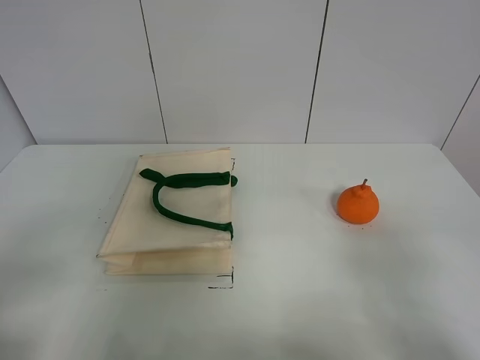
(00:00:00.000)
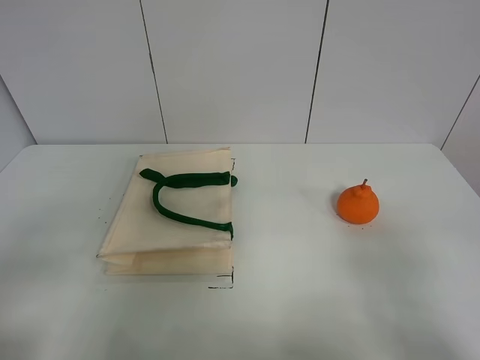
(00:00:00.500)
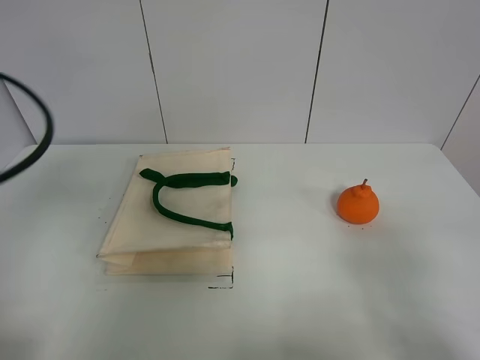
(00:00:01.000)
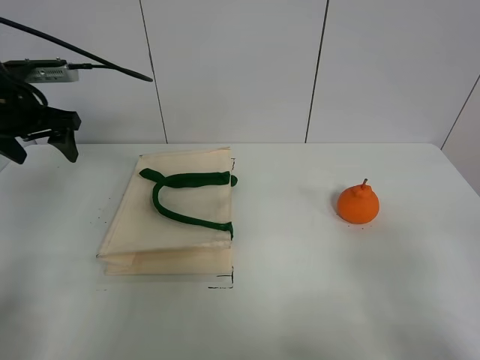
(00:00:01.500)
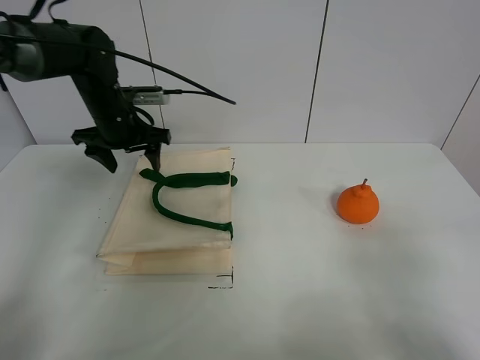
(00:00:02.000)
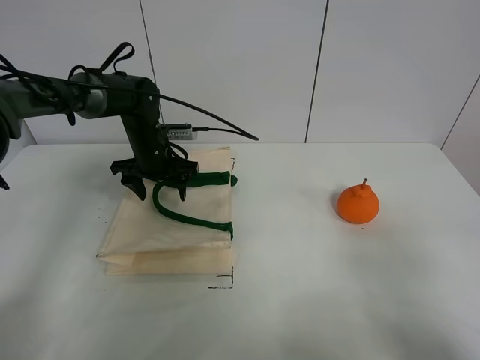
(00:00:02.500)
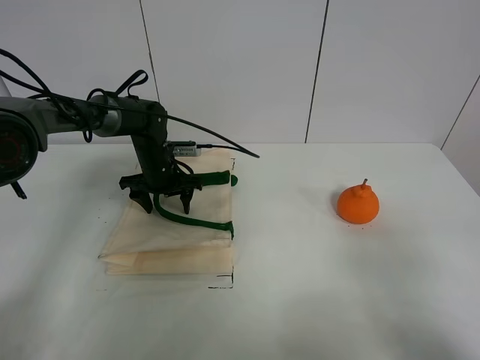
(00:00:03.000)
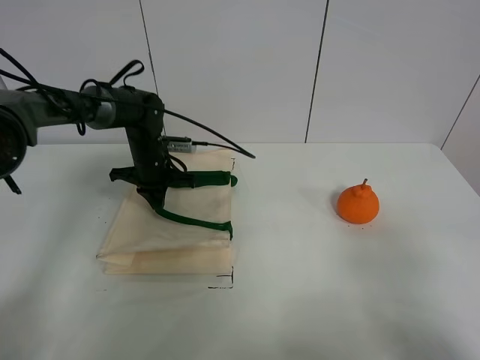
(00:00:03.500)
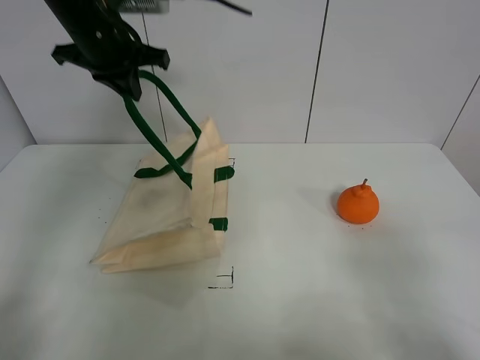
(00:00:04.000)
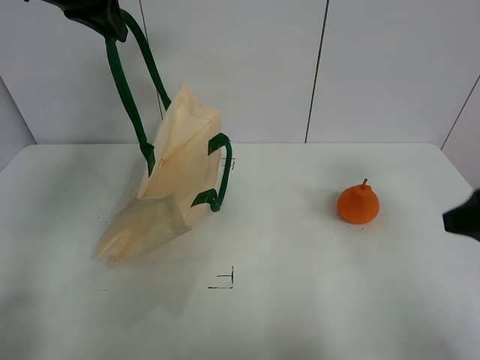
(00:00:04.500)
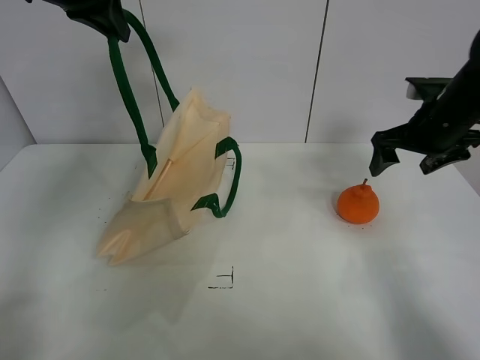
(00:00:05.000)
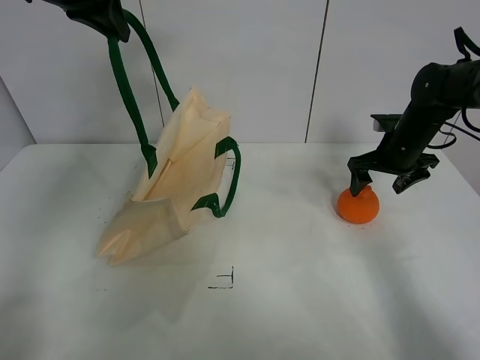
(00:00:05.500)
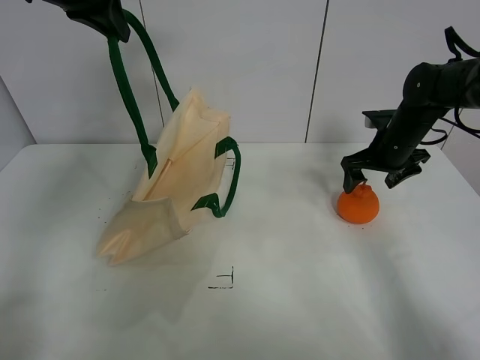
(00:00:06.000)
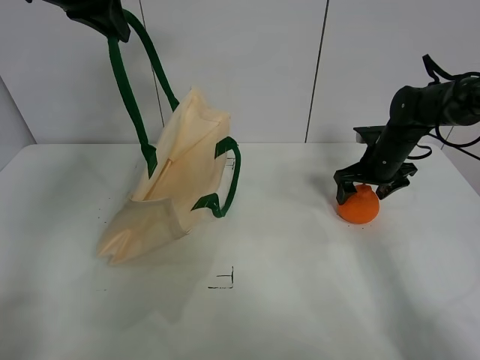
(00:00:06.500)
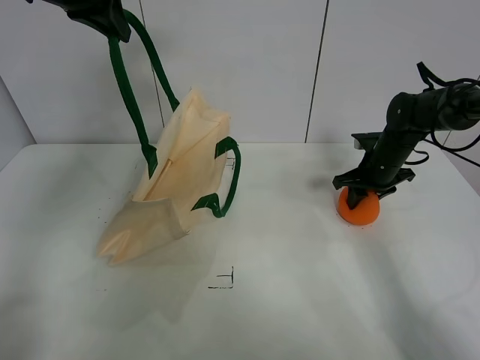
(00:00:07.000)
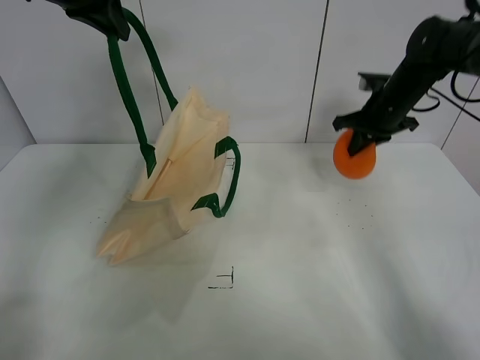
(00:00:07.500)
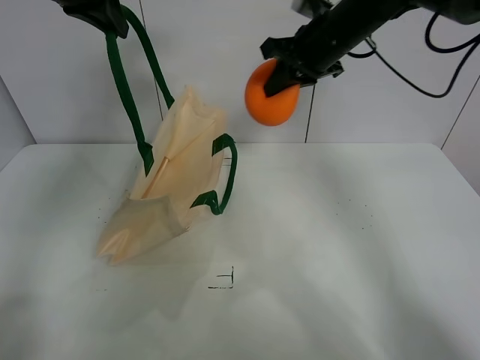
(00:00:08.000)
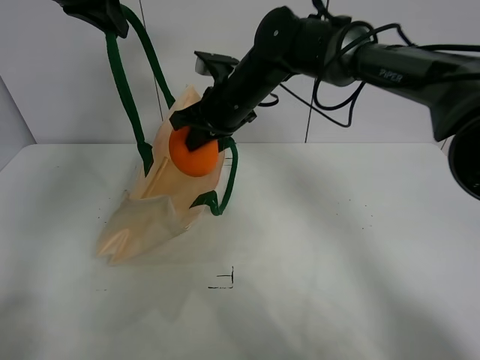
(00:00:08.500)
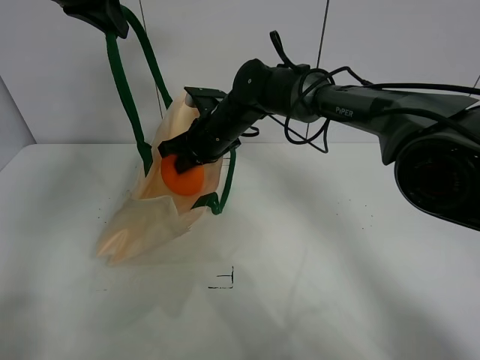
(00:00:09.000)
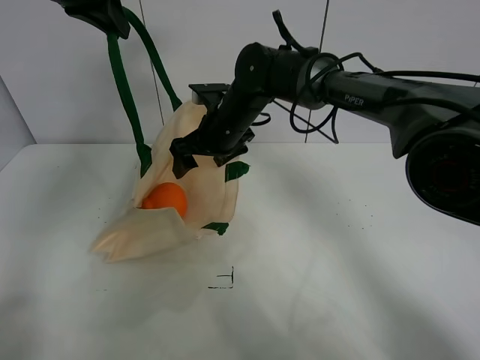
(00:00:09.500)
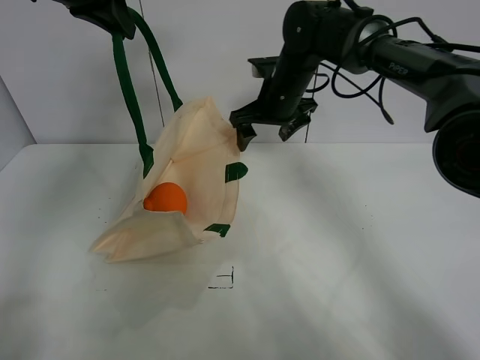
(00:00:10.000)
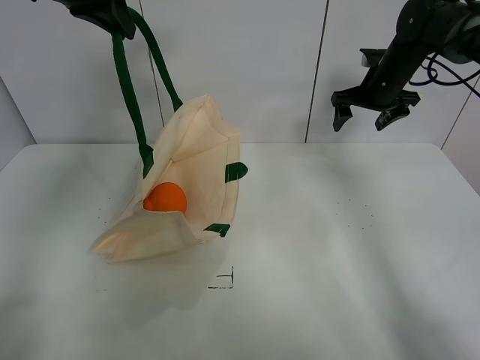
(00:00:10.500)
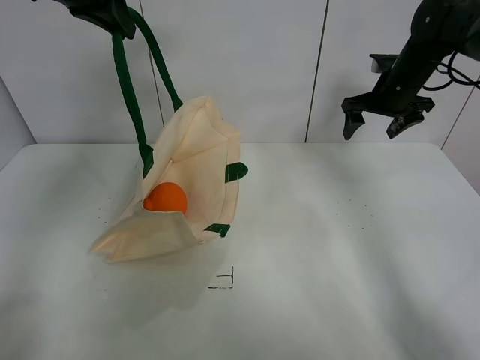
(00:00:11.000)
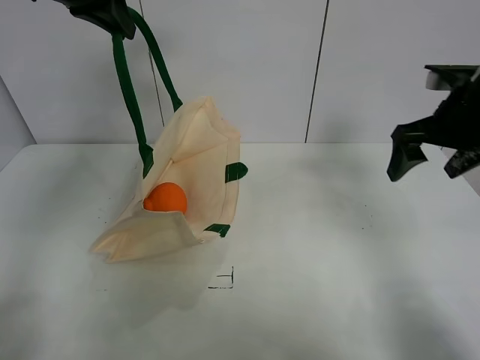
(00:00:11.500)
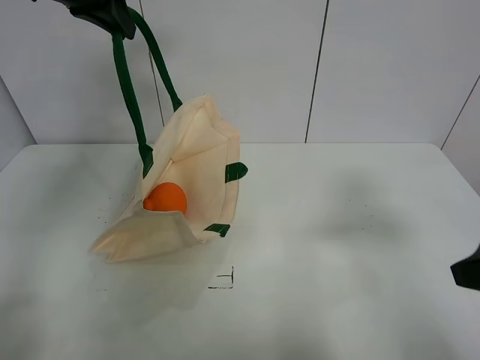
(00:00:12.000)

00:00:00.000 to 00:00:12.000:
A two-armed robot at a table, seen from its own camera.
Task of the whole recording: open the white linen bag and put the orange in the bag.
Step, 00:00:00.000 to 00:00:04.000: Lift the handbag with left gripper.
Step, 00:00:04.500 to 00:00:07.000: Grasp the orange with right gripper.
Step, 00:00:07.500 to 00:00:09.500: Place the orange in the handbag with right gripper.
00:00:00.000 to 00:00:02.000: The left gripper heads forward, covering approximately 40 cm.
00:00:02.000 to 00:00:04.000: The left gripper is displaced upward by some 15 cm, and closes its fingers.
00:00:04.000 to 00:00:06.000: The left gripper travels upward by roughly 5 cm, while the right gripper goes approximately 40 cm forward.
00:00:06.000 to 00:00:08.000: The right gripper heads upward and to the left, covering approximately 20 cm, and closes.
00:00:08.000 to 00:00:10.000: The right gripper heads downward, covering approximately 10 cm, travels to the left and back again, about 15 cm each way, and opens up.
00:00:10.000 to 00:00:12.000: The right gripper is displaced backward and to the right by about 40 cm.

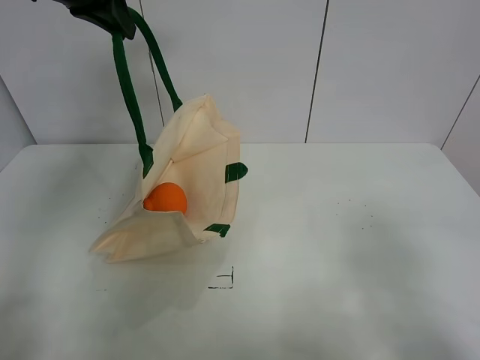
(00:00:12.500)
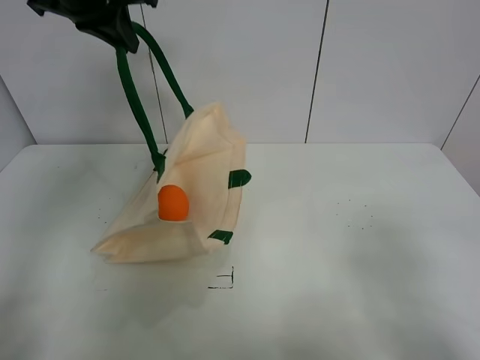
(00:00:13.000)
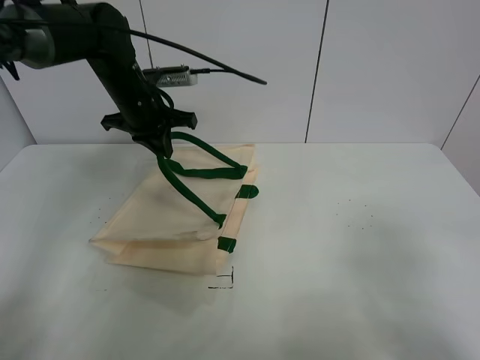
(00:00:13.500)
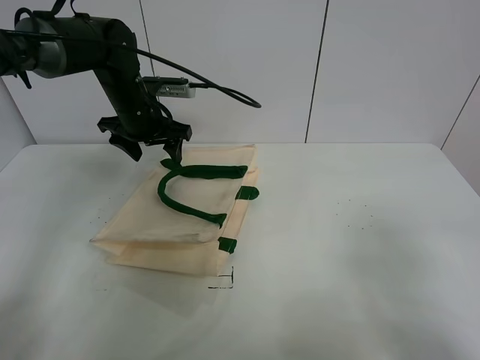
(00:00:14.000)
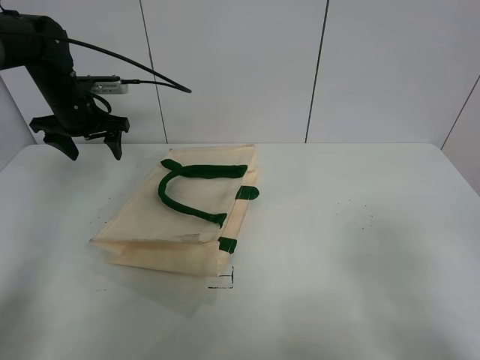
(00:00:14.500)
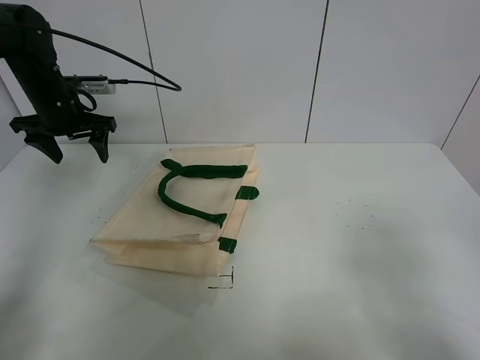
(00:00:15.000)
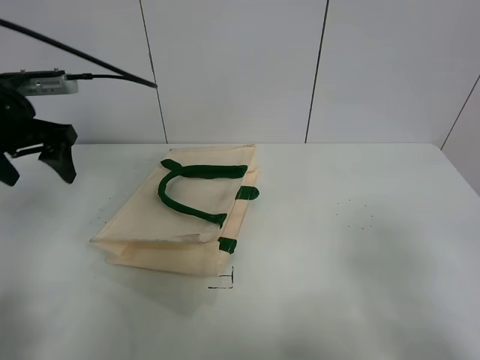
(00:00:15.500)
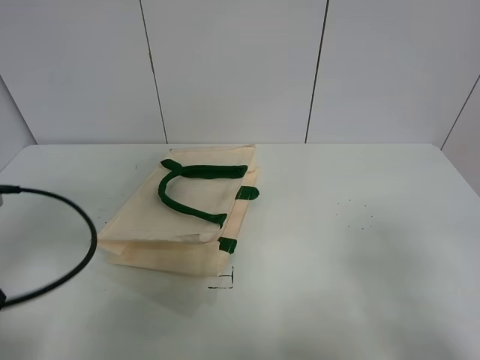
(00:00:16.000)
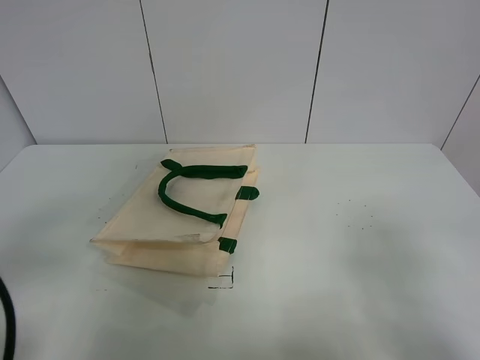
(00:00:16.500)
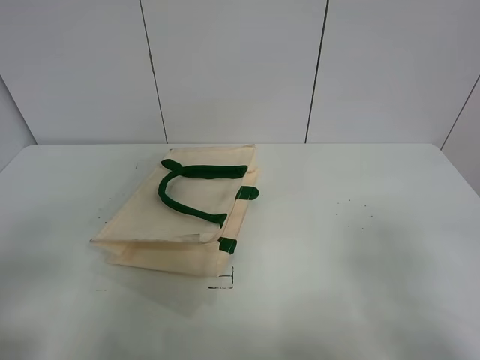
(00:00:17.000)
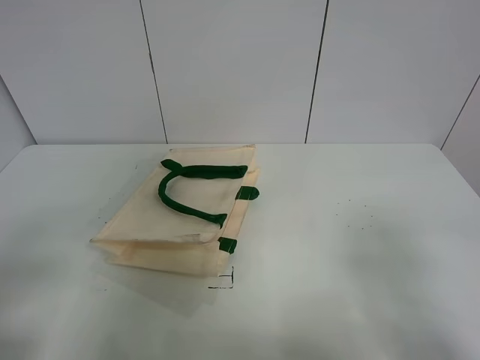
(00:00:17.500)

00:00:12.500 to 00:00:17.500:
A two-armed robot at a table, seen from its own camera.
Task of the whole recording: open the white linen bag and put the orange in the bag.
00:00:12.500 to 00:00:15.000: The left gripper heads downward and to the left, covering approximately 20 cm, and opens.
00:00:15.000 to 00:00:17.500: The left gripper moves backward, some 40 cm.

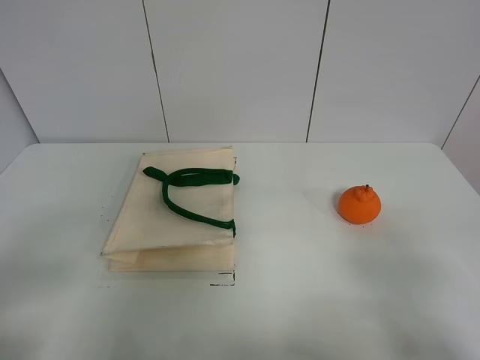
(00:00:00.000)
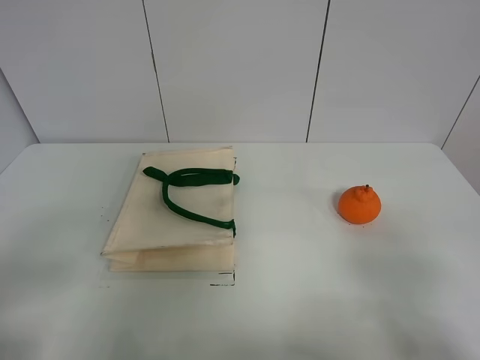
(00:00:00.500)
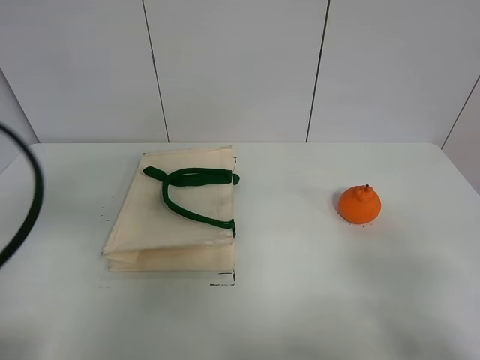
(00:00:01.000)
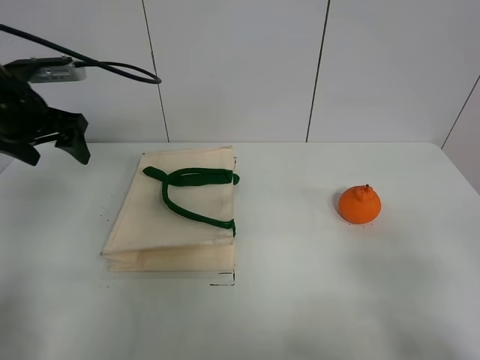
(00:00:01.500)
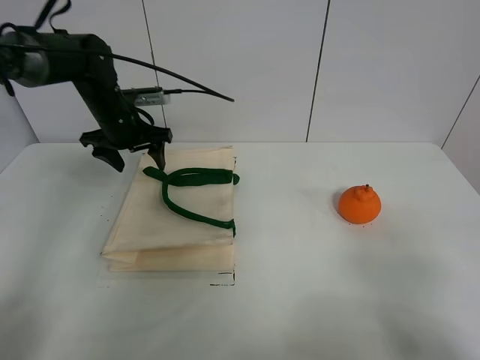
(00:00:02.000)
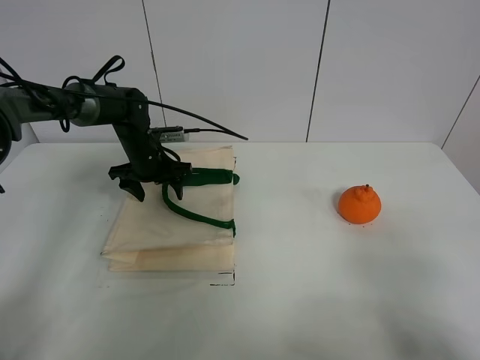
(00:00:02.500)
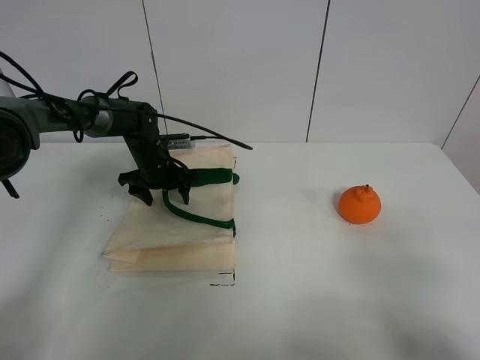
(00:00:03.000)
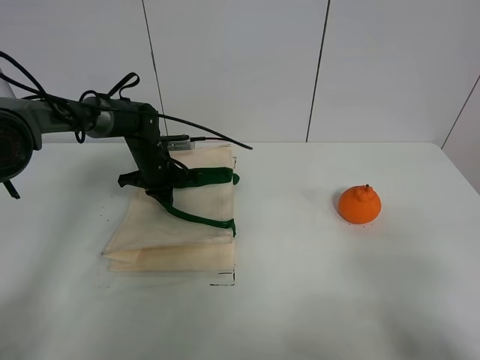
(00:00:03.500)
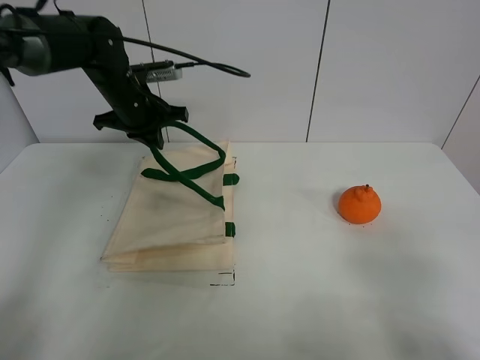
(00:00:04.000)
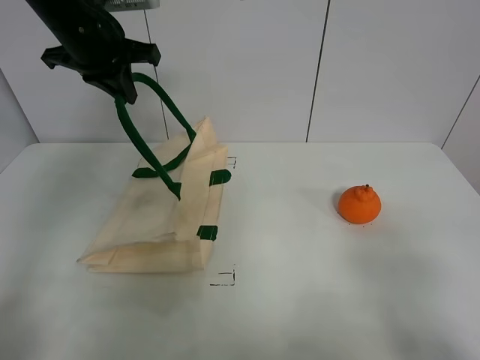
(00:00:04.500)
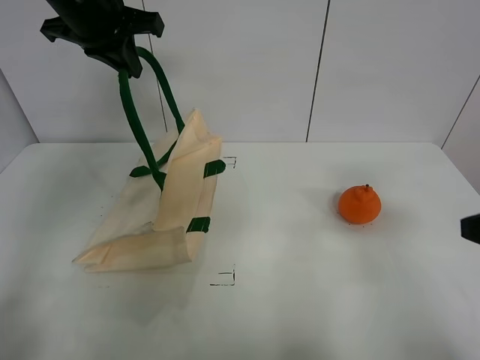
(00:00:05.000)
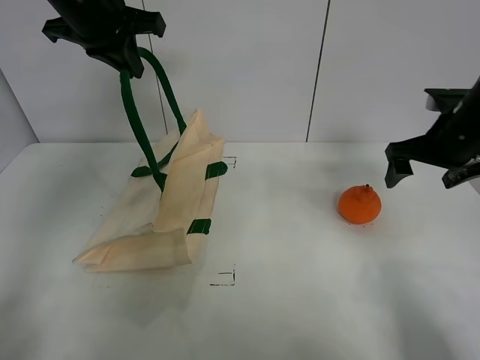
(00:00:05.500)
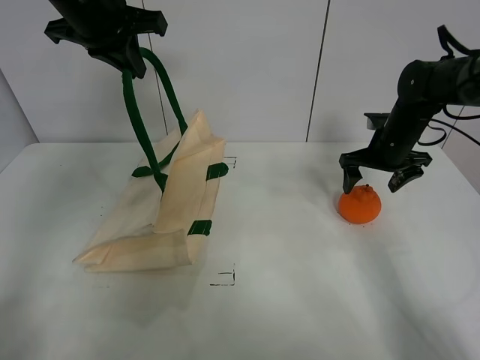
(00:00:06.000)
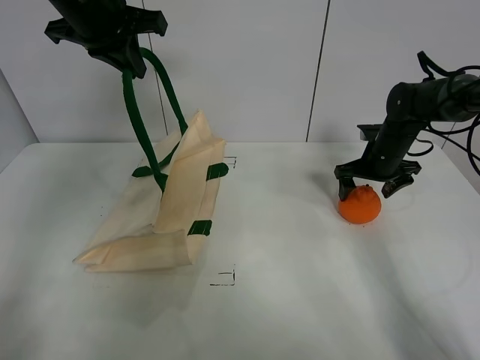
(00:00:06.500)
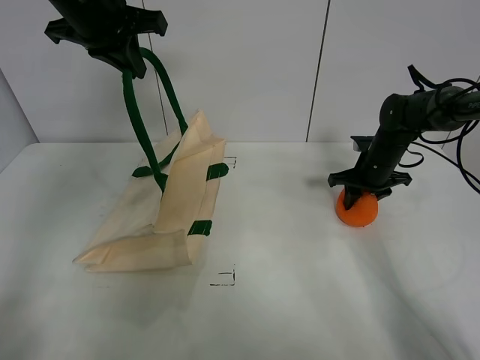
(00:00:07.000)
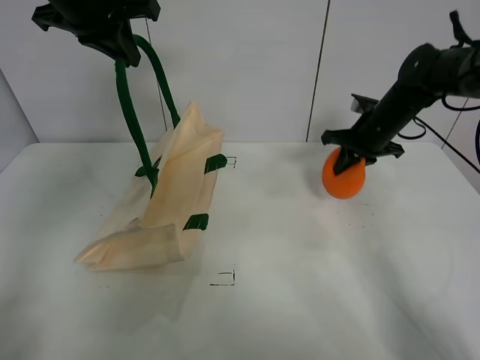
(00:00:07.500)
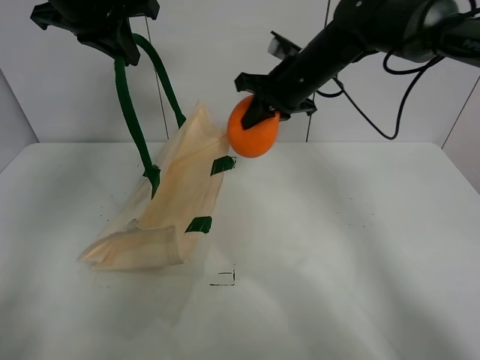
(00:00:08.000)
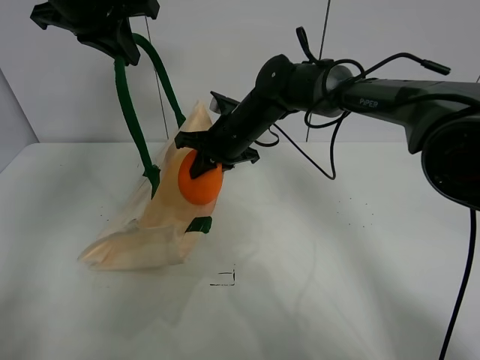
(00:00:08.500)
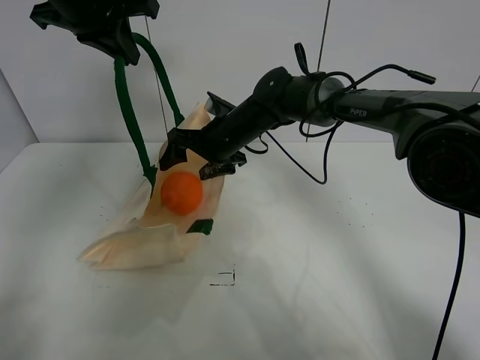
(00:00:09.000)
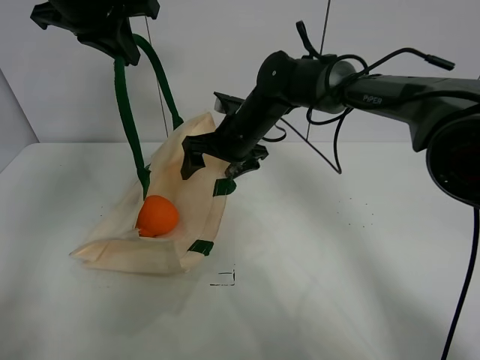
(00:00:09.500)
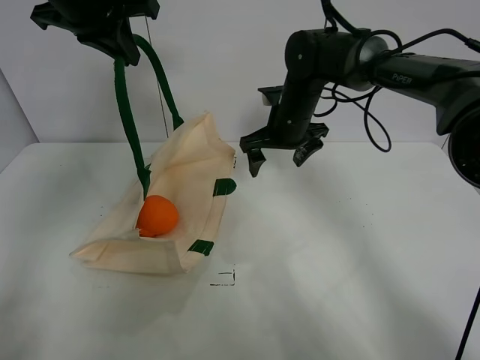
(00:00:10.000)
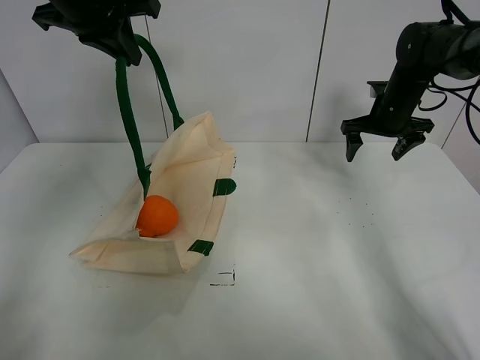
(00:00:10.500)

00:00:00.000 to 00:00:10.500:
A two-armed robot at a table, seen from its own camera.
Task of the whole recording: open the white linen bag and put the orange in the bag.
Step, 00:00:00.000 to 00:00:04.500: Lift the handbag with left gripper.
Step, 00:00:05.000 to 00:00:07.000: Grasp the orange with right gripper.
Step, 00:00:07.500 to 00:00:09.000: Place the orange in the handbag with right gripper.
00:00:00.000 to 00:00:02.000: The left gripper moves forward, about 40 cm.
00:00:02.000 to 00:00:04.000: The left gripper moves some 10 cm downward and comes back, and closes its fingers.
00:00:04.000 to 00:00:06.500: The left gripper heads upward, covering about 15 cm, while the right gripper shifts some 40 cm forward.
00:00:06.500 to 00:00:08.500: The right gripper travels to the left by approximately 25 cm, and closes its fingers.
00:00:08.500 to 00:00:10.500: The right gripper travels to the right by roughly 25 cm, and opens.
